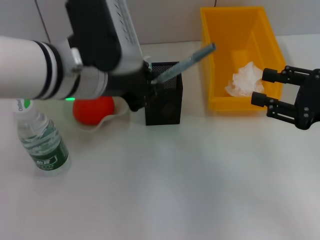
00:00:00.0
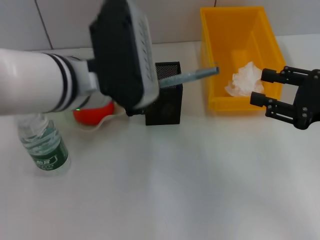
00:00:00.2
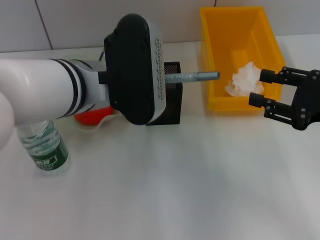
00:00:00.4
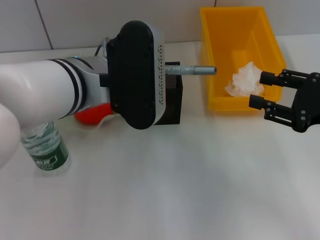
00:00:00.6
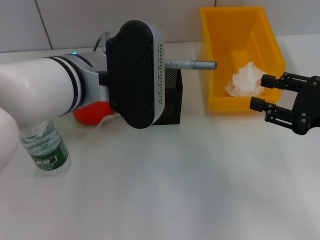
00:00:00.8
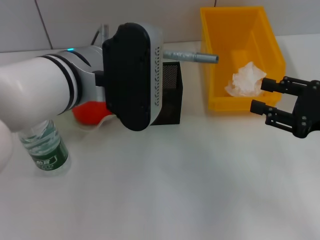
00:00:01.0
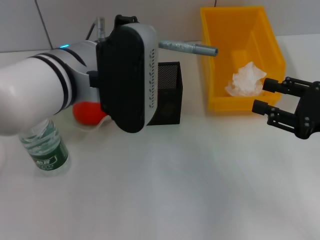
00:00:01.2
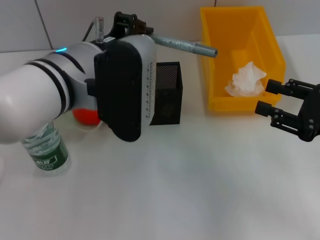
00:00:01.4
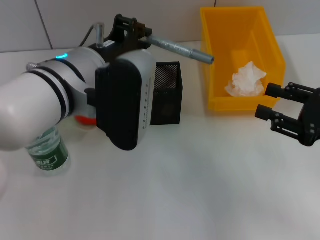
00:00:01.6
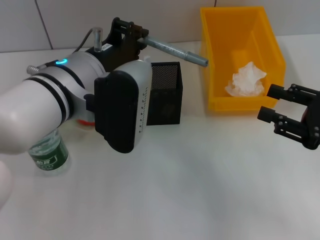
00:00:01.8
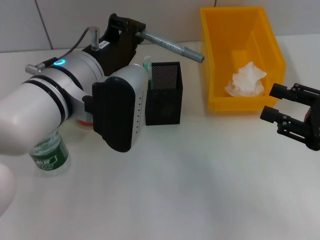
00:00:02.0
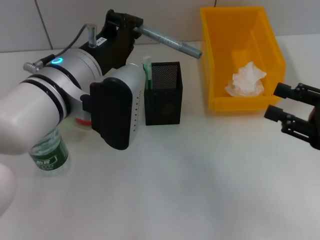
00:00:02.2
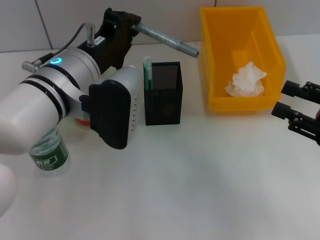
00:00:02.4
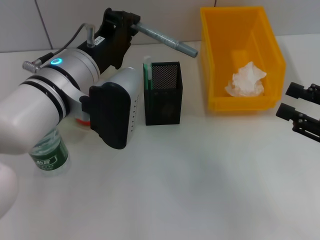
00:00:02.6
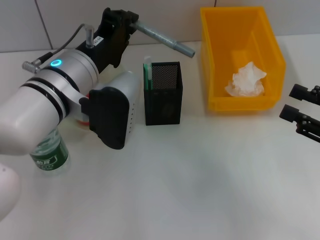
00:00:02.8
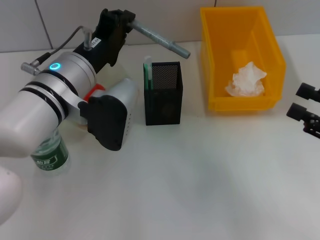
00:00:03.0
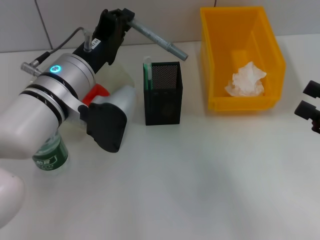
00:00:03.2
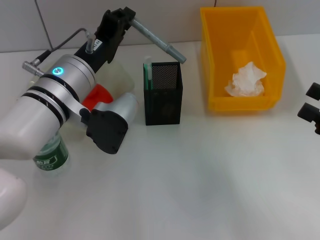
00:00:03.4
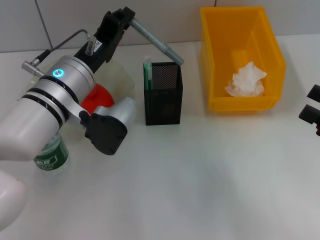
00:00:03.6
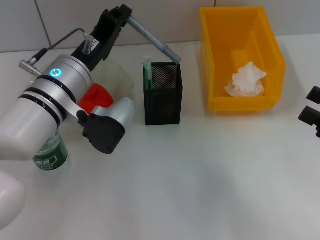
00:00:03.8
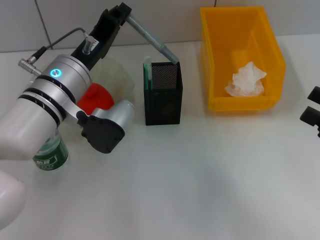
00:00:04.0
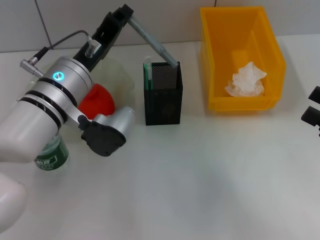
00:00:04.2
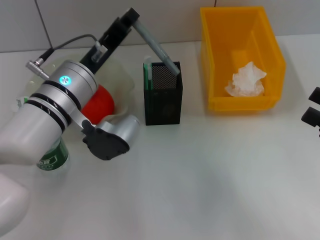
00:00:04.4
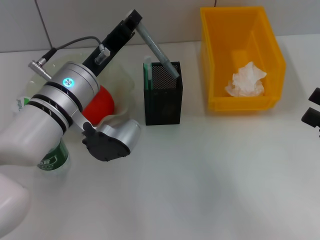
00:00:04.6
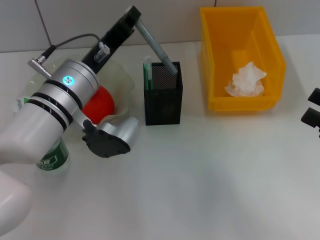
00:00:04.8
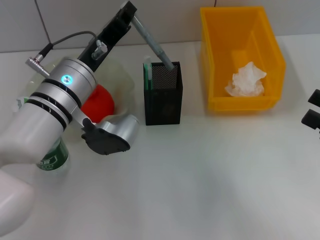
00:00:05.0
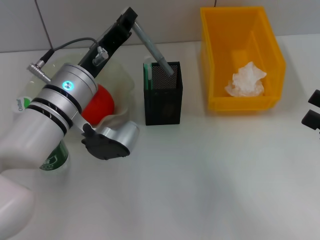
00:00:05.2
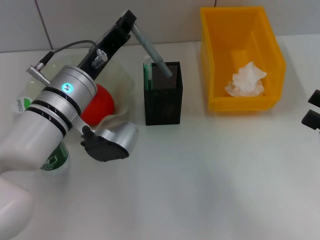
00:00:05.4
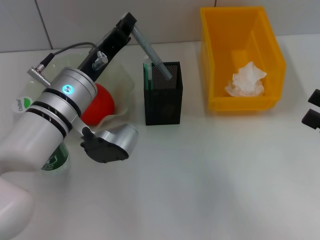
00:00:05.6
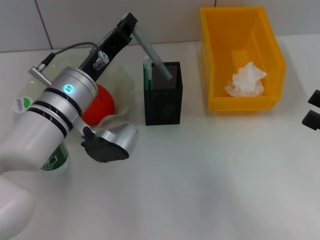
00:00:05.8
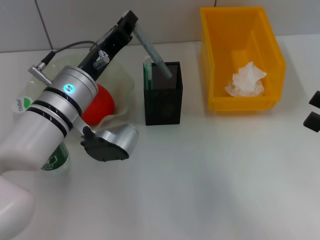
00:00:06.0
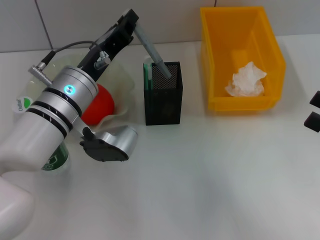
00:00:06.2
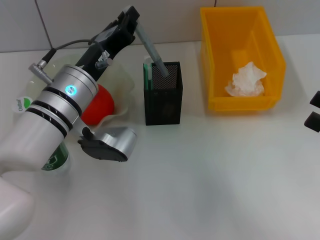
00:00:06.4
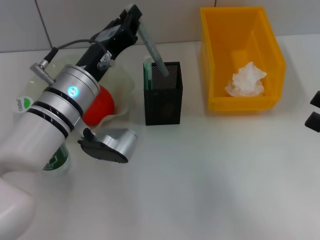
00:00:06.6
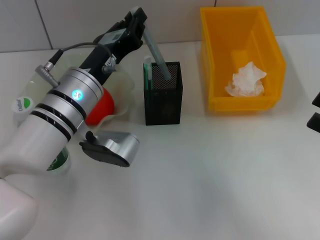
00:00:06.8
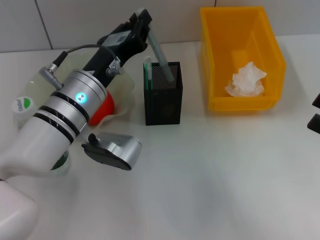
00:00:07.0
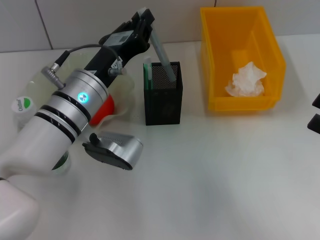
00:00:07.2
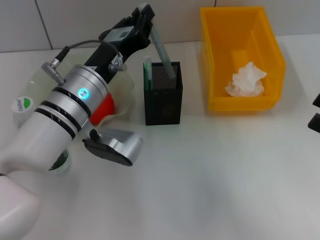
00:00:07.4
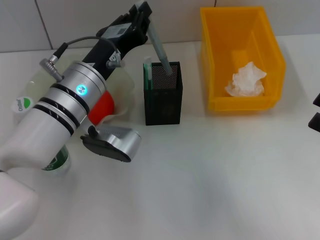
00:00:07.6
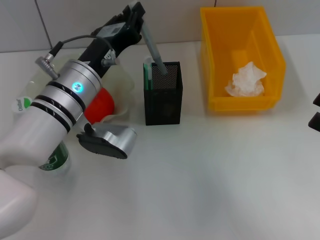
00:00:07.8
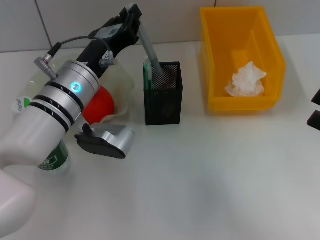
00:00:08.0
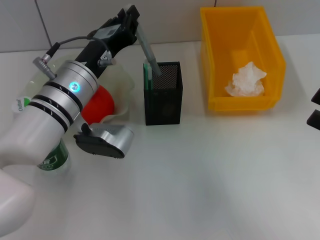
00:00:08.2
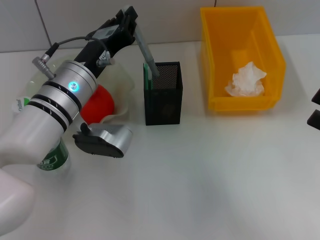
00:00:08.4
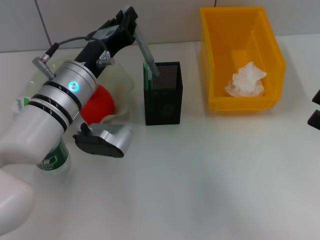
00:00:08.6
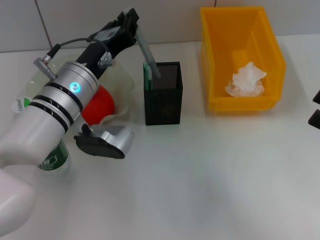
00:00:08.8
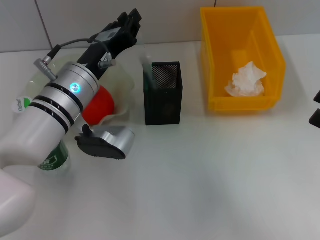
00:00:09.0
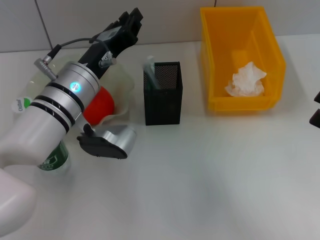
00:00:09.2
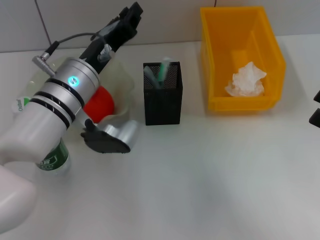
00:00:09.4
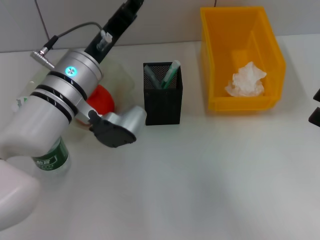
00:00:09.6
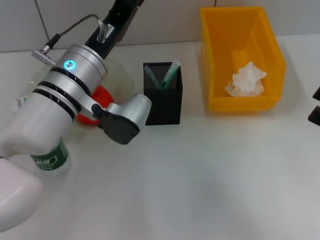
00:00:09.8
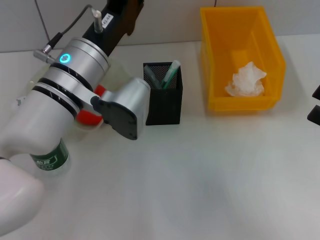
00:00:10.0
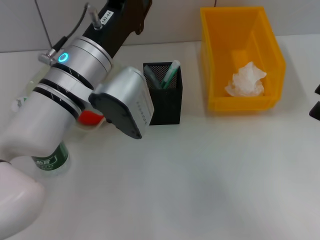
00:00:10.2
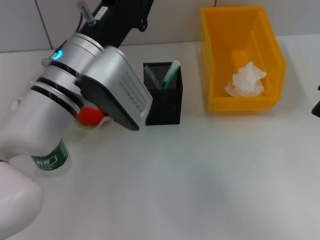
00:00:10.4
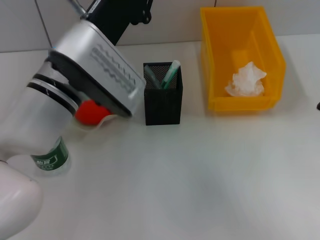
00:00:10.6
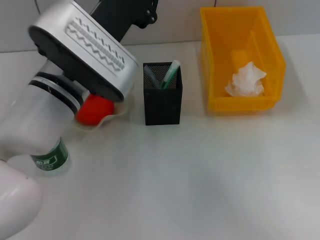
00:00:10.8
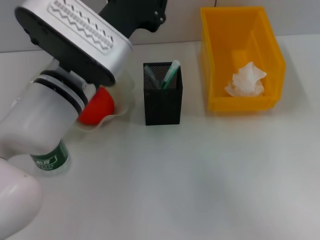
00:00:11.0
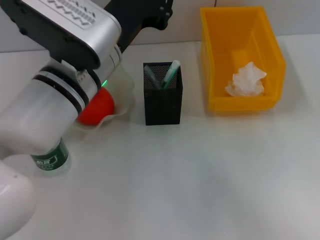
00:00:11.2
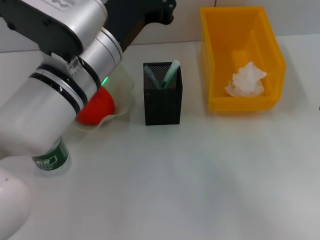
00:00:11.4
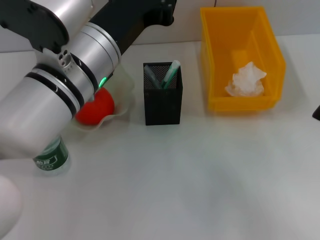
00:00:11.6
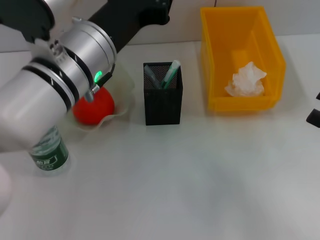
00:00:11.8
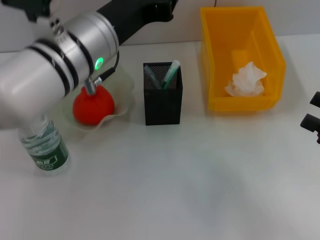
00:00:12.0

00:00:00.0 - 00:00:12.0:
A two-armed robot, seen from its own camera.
Step, 00:00:00.0 - 00:00:09.2: Place the gray glue into the pen holder with the left hand.
00:00:01.6 - 00:00:03.0: The left gripper changes place by approximately 5 cm.
00:00:04.4 - 00:00:06.0: The grippers stay close to where they were, moving slightly.
00:00:06.0 - 00:00:09.0: The grippers stay close to where they were, moving slightly.
00:00:09.0 - 00:00:10.4: The left gripper changes place by roughly 5 cm.
00:00:10.4 - 00:00:12.0: The left gripper is displaced upward by some 5 cm.

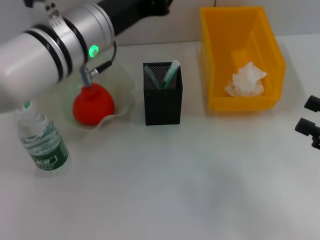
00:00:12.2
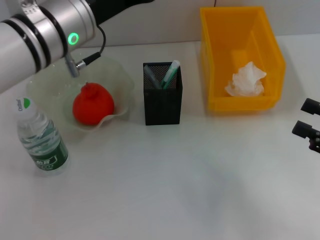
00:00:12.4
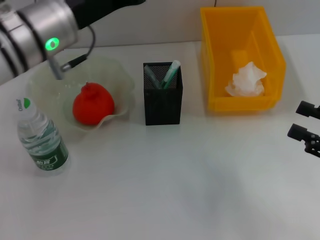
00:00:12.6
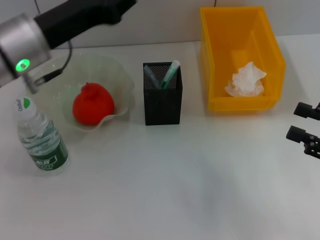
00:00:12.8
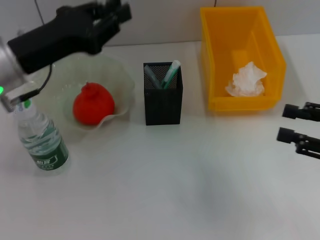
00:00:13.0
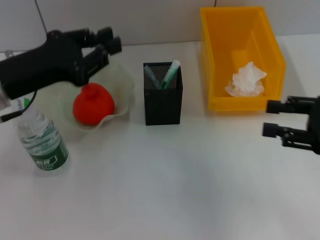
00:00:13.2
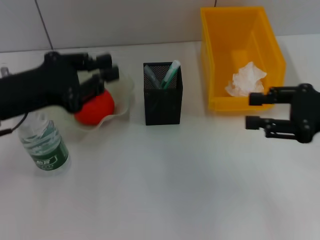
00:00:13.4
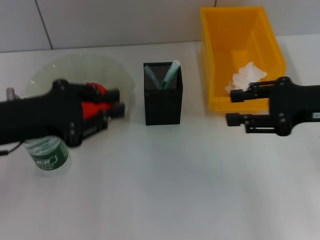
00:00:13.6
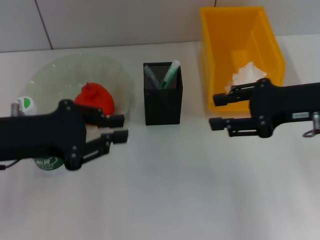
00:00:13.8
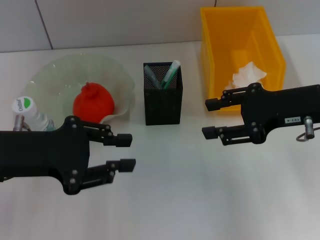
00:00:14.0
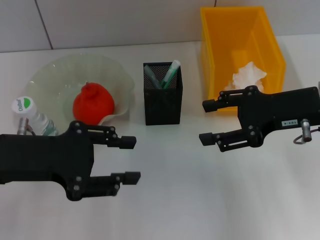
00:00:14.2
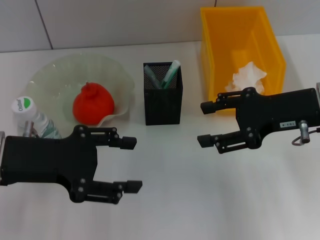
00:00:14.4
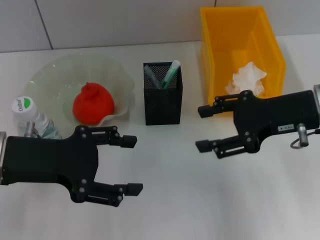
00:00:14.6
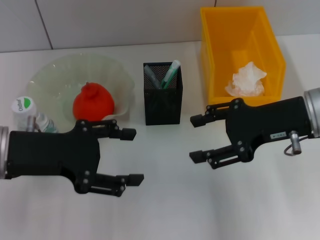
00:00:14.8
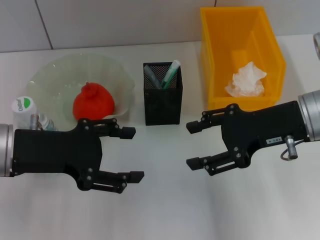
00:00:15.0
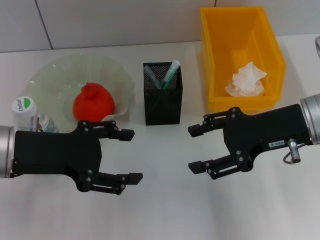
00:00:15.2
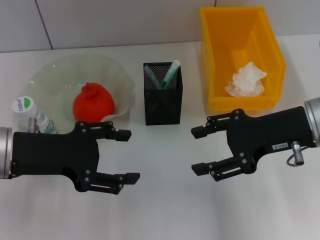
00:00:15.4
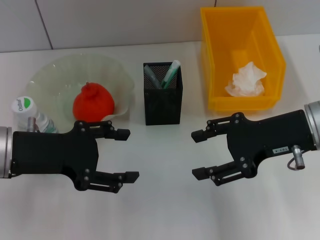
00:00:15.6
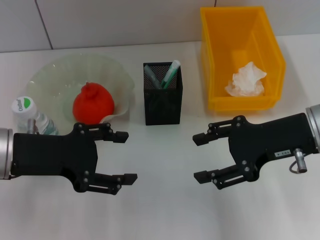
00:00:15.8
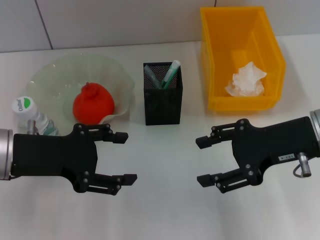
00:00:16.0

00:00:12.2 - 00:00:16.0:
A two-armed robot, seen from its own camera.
00:00:12.2 - 00:00:13.4: The right gripper goes roughly 10 cm forward and upward. Meanwhile the left gripper goes about 15 cm to the left.
00:00:13.4 - 00:00:14.8: The left gripper opens up. The right gripper goes about 10 cm to the left.
00:00:14.8 - 00:00:16.0: The grippers make only small movements.

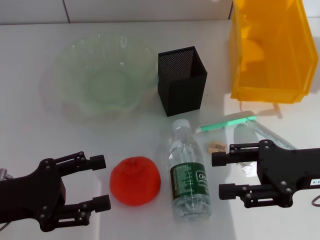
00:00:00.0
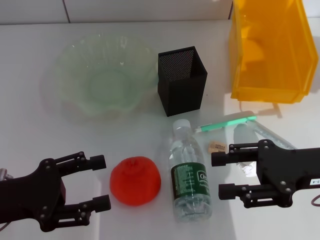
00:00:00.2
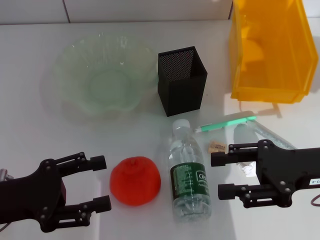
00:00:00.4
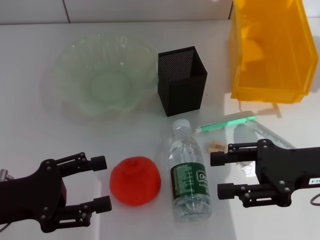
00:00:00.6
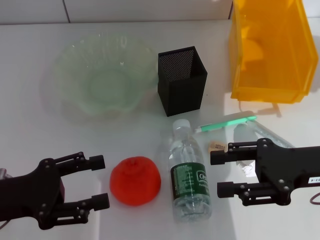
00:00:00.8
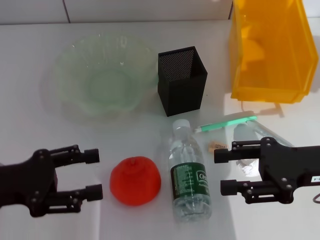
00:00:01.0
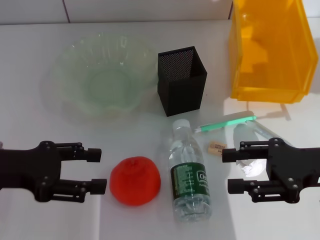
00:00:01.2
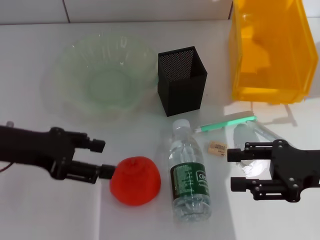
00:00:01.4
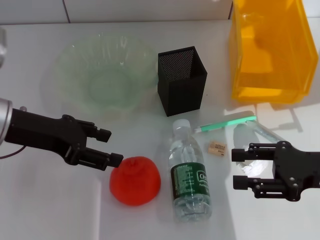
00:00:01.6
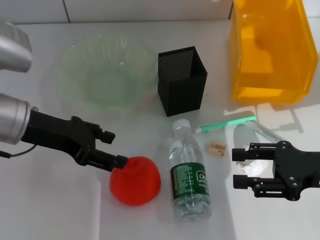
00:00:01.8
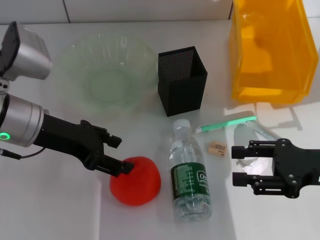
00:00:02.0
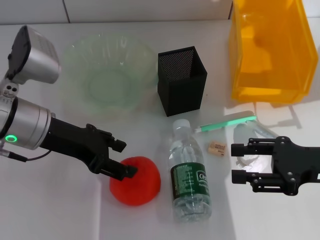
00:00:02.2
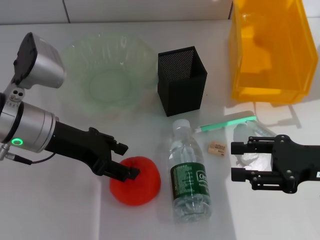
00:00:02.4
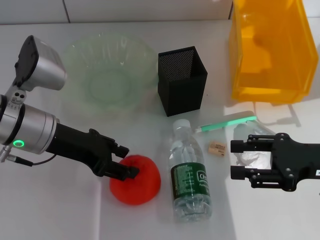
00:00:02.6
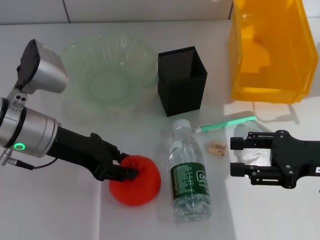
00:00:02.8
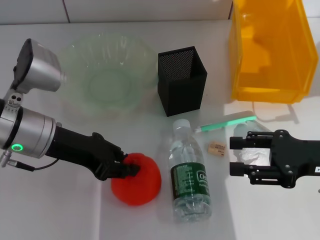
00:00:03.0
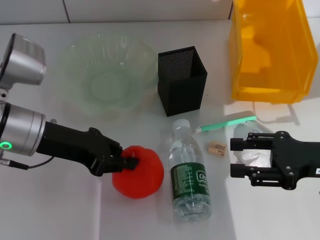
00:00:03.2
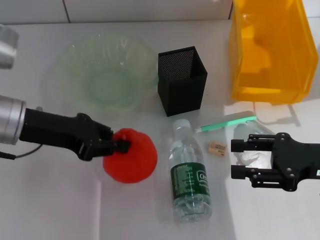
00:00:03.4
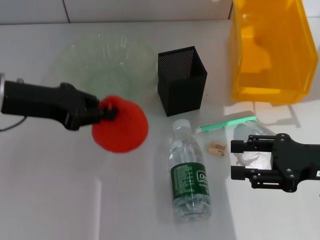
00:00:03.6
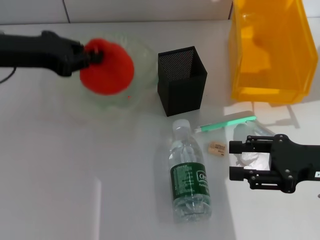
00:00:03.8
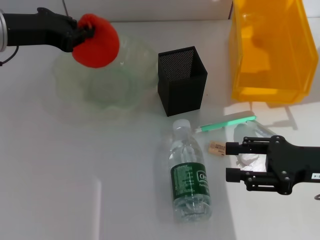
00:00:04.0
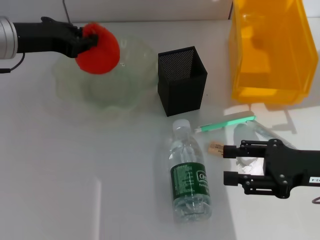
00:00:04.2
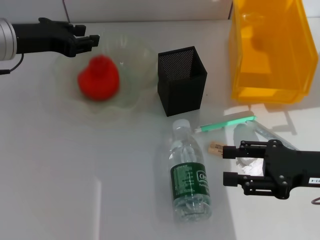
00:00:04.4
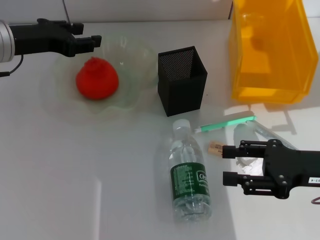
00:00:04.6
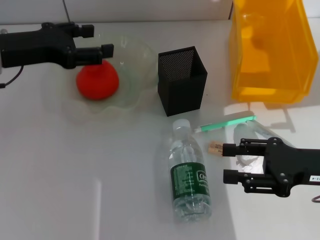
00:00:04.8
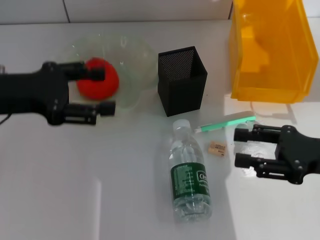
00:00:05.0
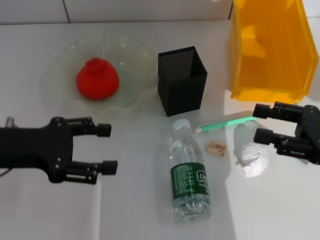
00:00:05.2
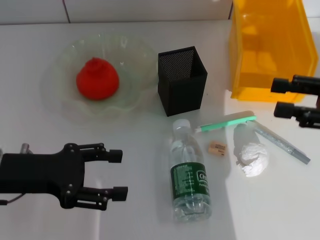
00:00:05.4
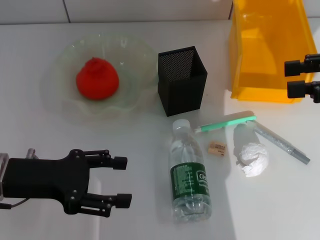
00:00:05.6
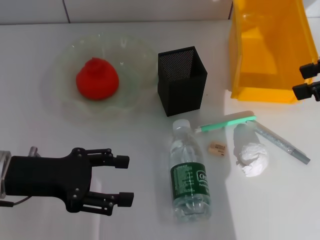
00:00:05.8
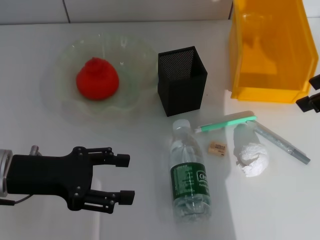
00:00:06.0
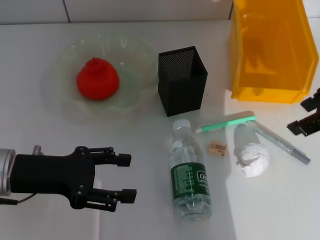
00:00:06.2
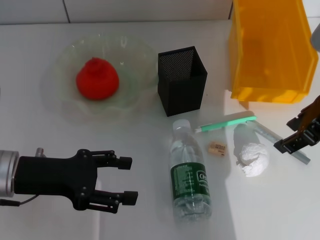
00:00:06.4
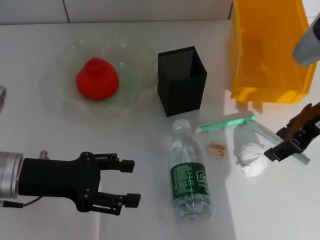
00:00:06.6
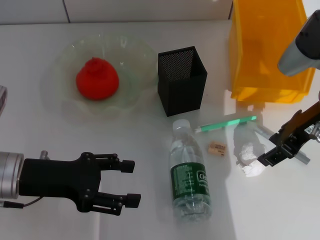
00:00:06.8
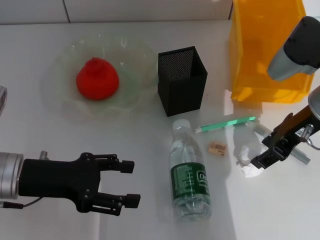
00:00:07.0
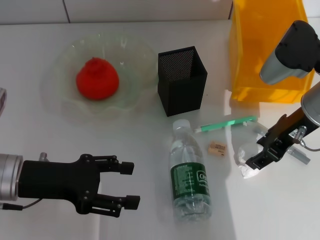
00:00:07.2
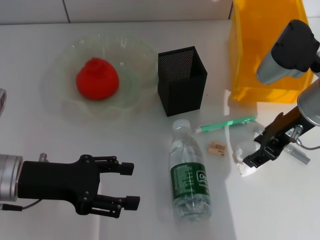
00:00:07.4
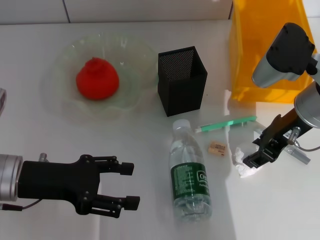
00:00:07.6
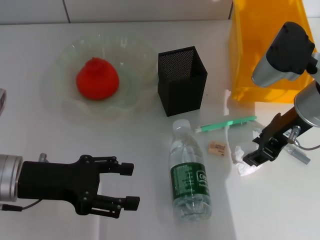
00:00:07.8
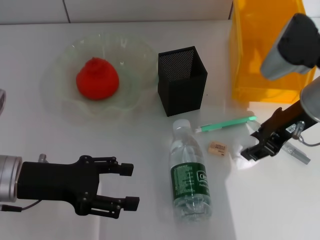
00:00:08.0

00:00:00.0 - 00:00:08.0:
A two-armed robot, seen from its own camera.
Step, 00:00:00.0 - 00:00:02.8: Grab the orange with the left hand.
Step, 00:00:03.0 - 00:00:04.8: Place the orange into the fruit bowl with the left hand.
Step, 00:00:05.0 - 00:00:07.6: Grab the paper ball with the right hand.
00:00:00.0 - 00:00:01.6: The left gripper travels forward and upward by approximately 10 cm.
00:00:01.6 - 00:00:03.2: The left gripper closes.
00:00:03.2 - 00:00:04.8: The left gripper travels forward by some 5 cm, and opens its fingers.
00:00:04.8 - 00:00:06.4: The left gripper moves backward and downward, some 15 cm, and opens, while the right gripper goes some 15 cm upward and forward.
00:00:06.4 - 00:00:08.0: The right gripper moves about 5 cm.
